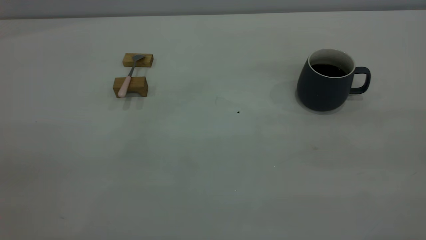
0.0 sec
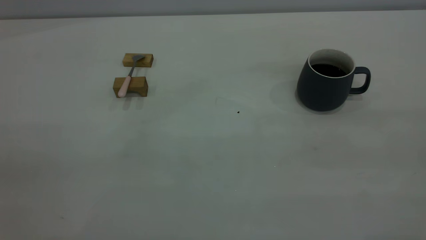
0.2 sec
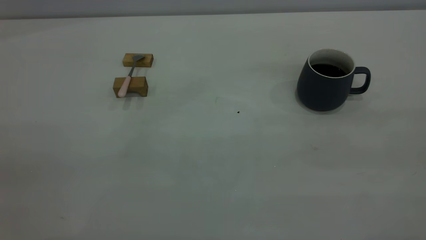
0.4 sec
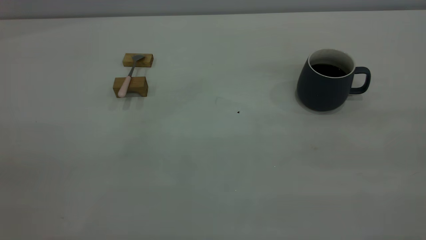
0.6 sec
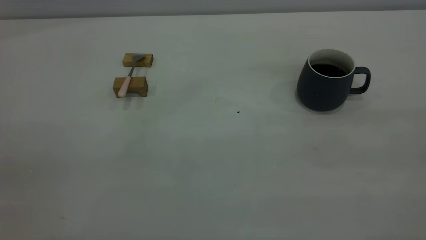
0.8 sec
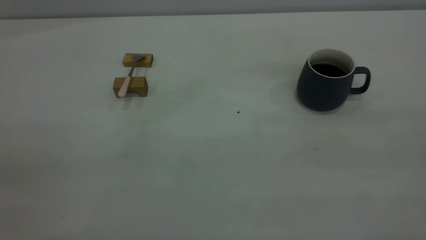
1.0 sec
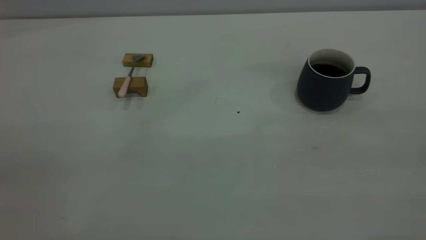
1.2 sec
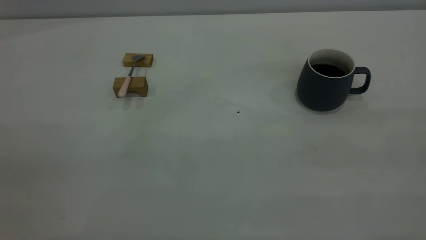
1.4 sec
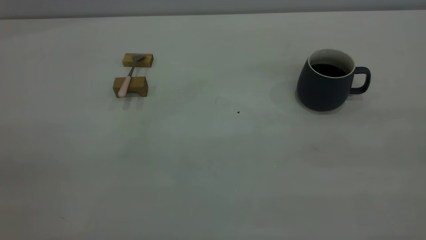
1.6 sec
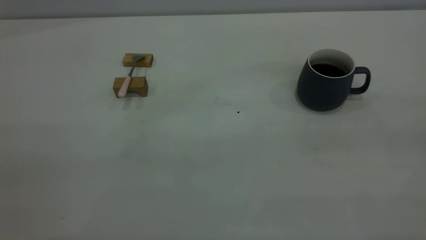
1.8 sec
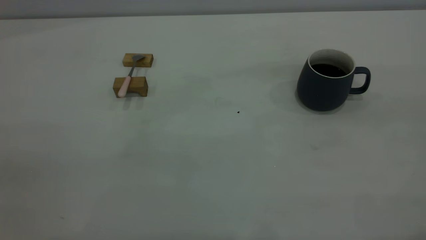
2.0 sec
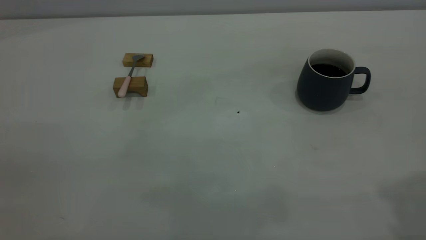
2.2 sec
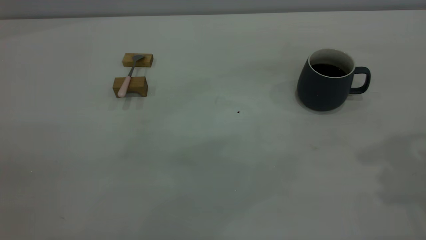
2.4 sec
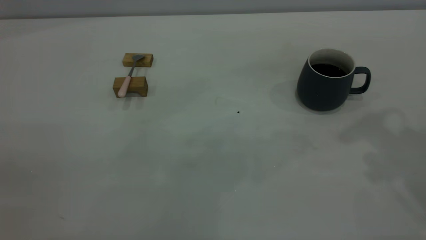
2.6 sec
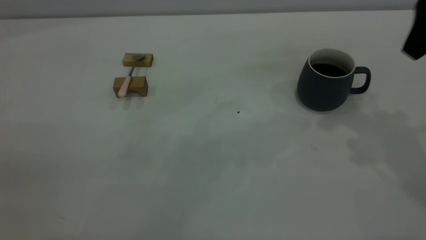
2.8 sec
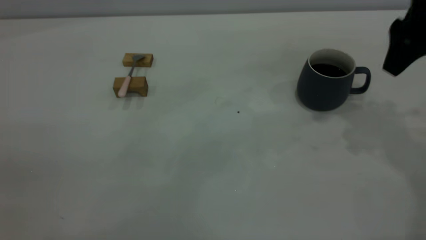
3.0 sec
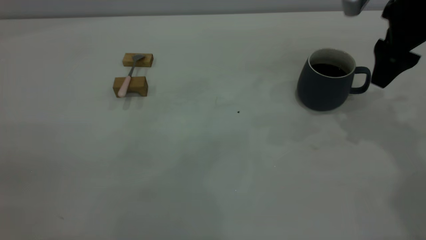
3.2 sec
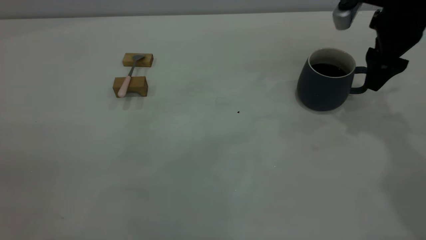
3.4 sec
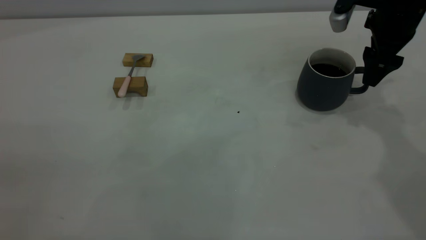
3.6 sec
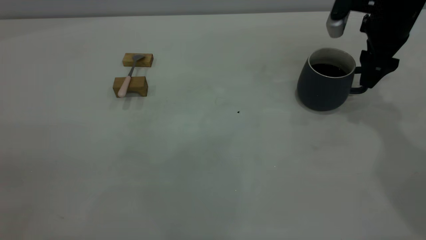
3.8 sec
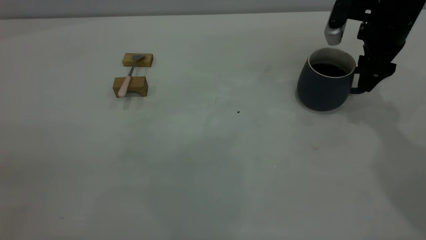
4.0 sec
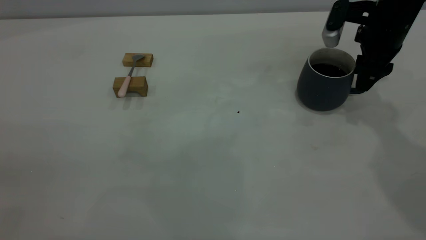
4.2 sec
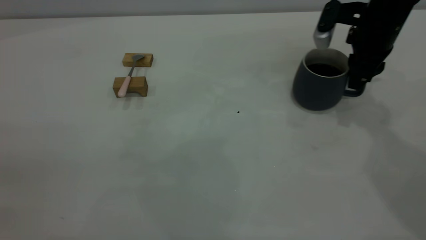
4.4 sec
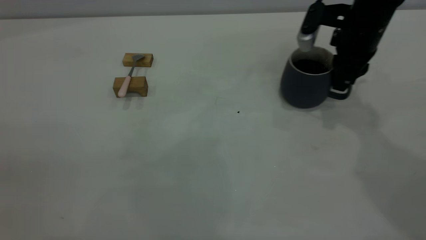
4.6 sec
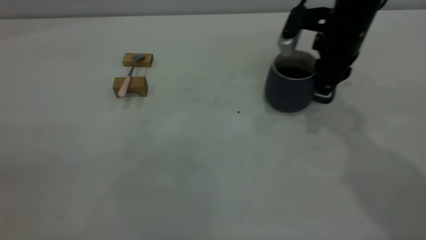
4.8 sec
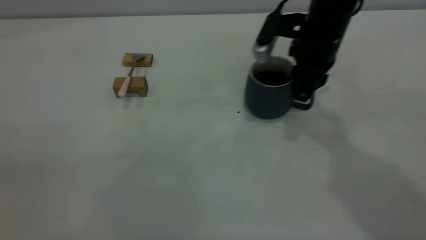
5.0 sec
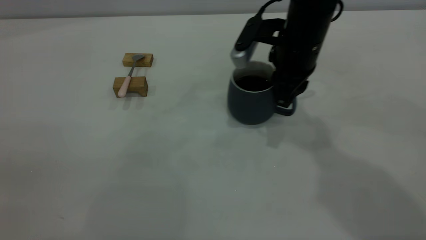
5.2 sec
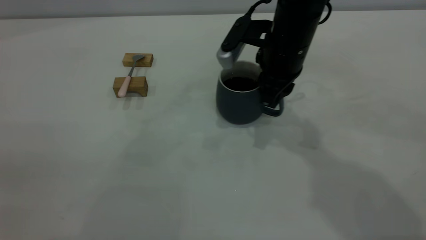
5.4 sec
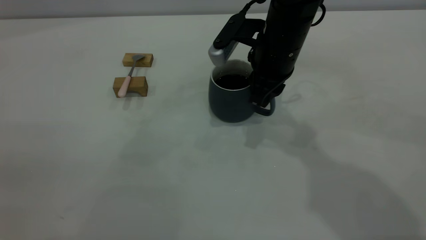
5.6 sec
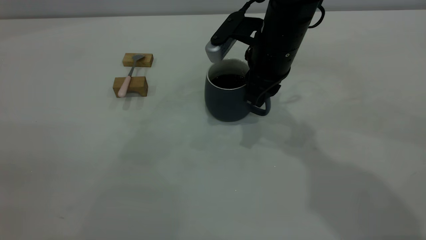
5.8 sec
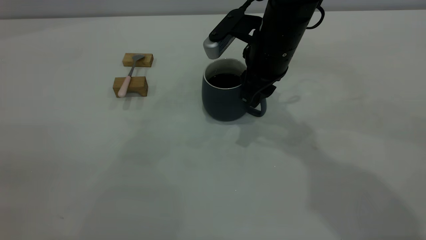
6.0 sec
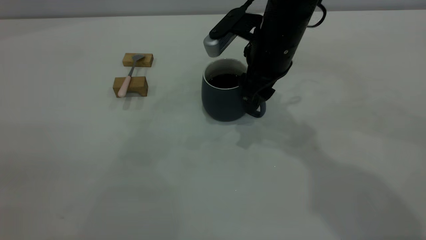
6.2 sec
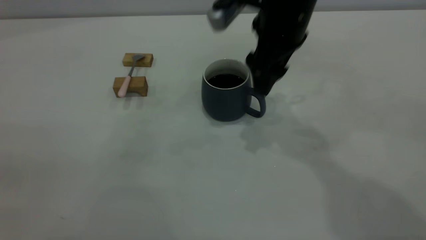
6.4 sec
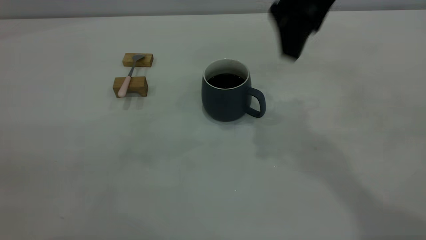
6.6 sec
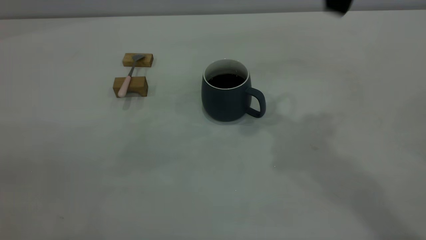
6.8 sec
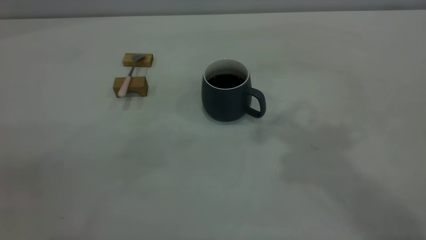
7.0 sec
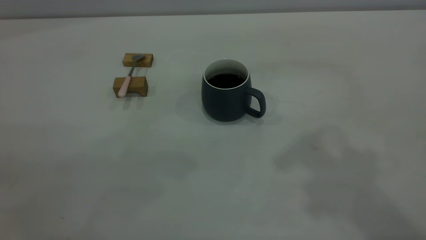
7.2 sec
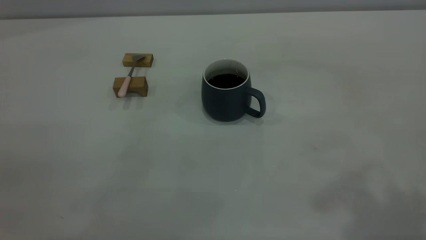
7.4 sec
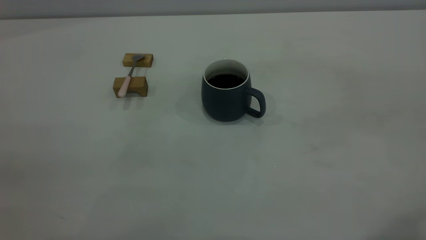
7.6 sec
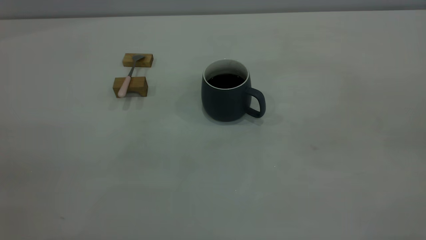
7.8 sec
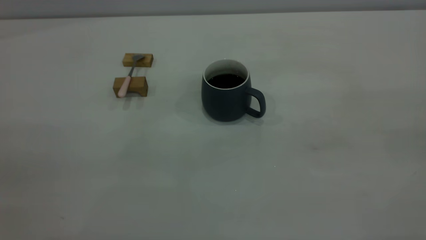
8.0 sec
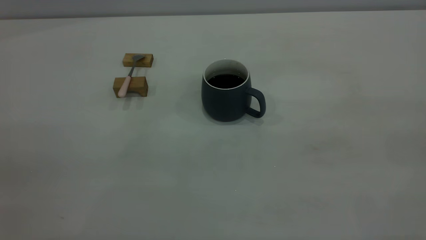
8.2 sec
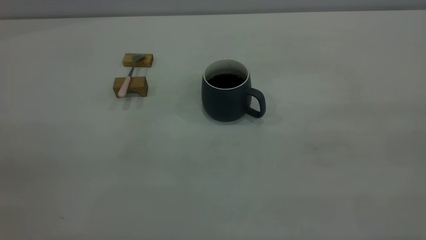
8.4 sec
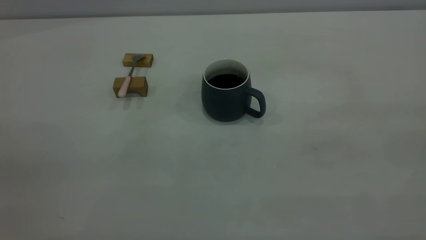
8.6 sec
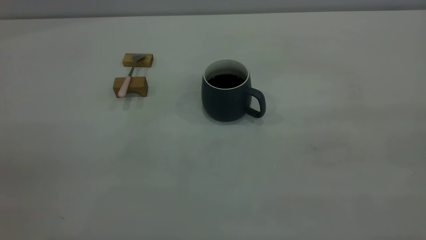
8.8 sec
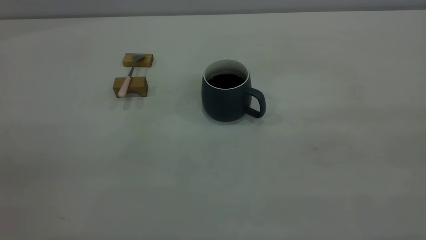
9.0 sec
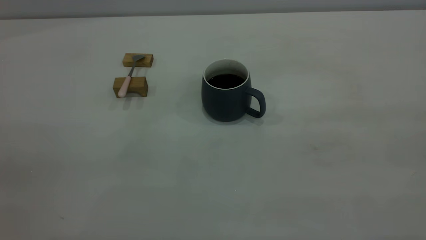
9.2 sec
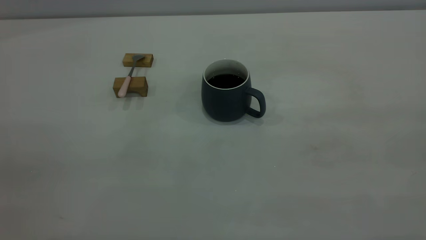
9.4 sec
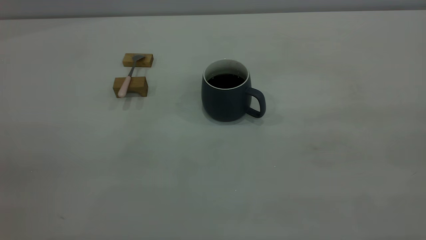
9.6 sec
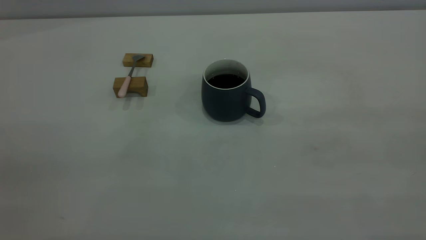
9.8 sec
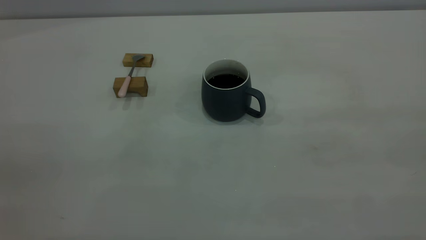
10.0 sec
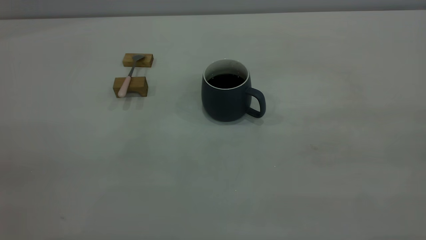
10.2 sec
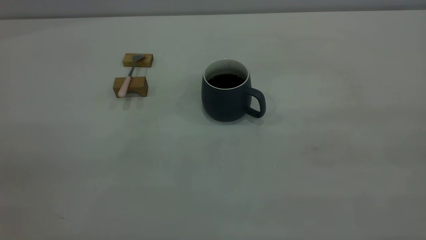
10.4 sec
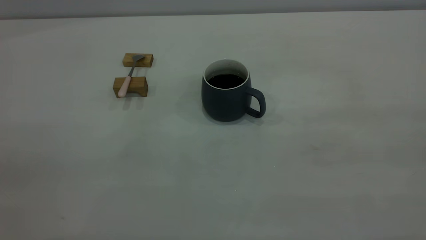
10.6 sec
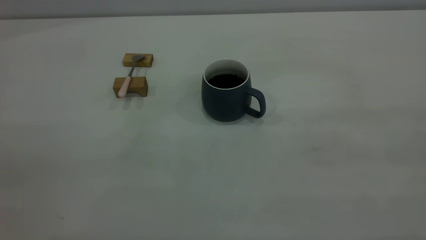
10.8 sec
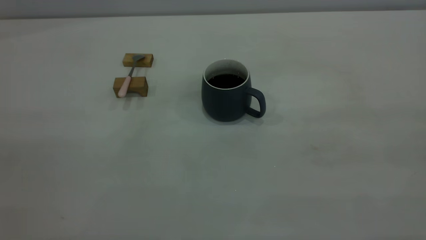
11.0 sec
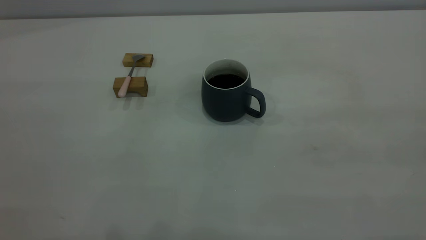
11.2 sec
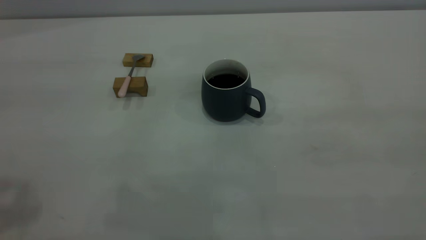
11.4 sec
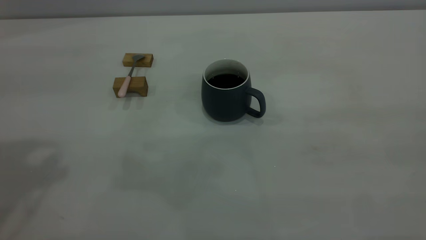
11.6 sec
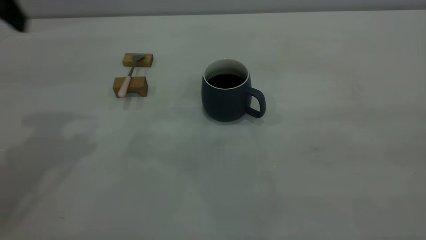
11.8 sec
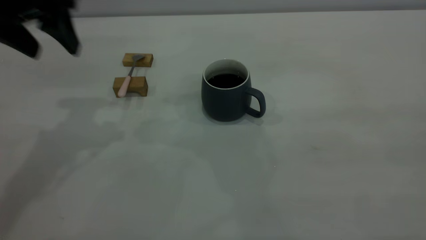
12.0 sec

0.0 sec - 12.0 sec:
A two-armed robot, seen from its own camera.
Step, 0.0 sec - 6.4 sec: Move the cup with coffee to the center of view.
0.0 sec - 1.6 sec: The two grippers keep their place.
1.6 sec - 3.0 sec: The right gripper travels forward by about 35 cm, and opens up.
3.0 sec - 4.4 sec: The right gripper is displaced downward and forward by approximately 10 cm, and closes its fingers.
4.4 sec - 6.0 sec: The right gripper shifts approximately 15 cm to the left.
6.0 sec - 7.6 sec: The right gripper shifts some 40 cm backward, upward and to the right, and opens its fingers.
10.4 sec - 12.0 sec: The left gripper shifts roughly 35 cm forward, and opens up.

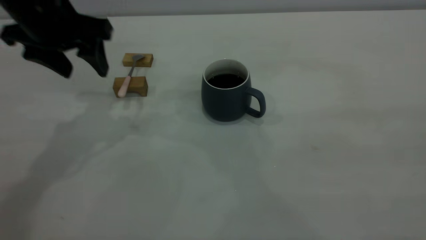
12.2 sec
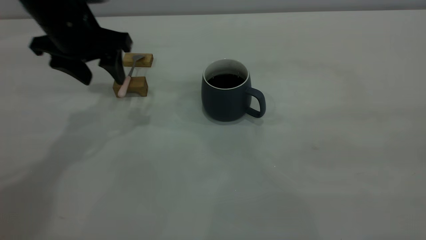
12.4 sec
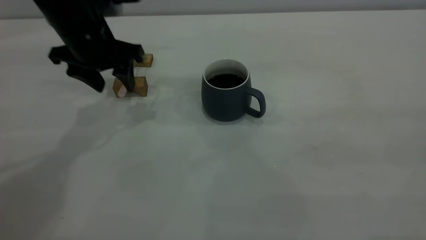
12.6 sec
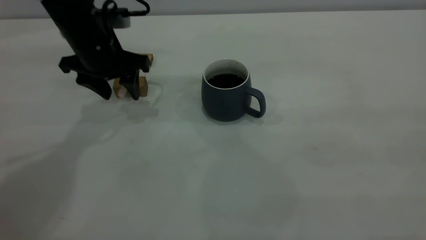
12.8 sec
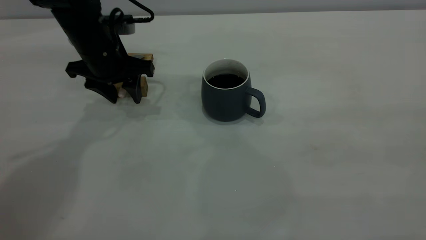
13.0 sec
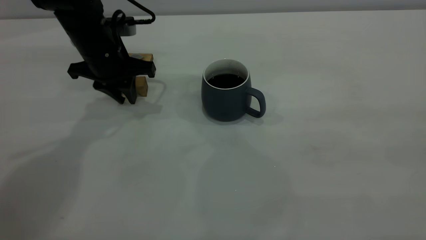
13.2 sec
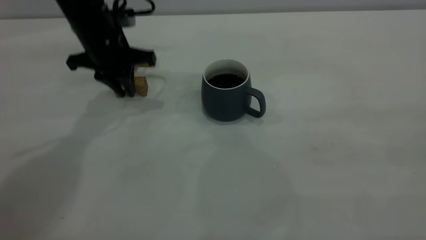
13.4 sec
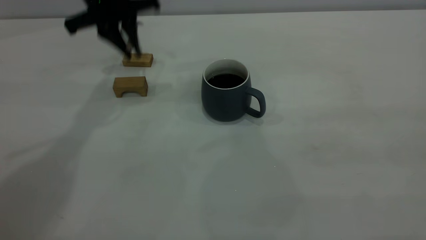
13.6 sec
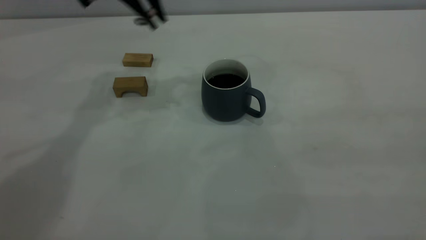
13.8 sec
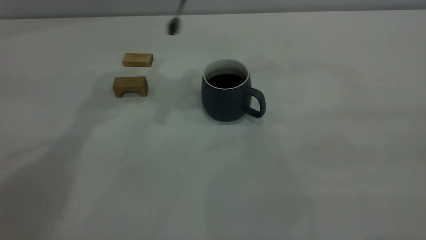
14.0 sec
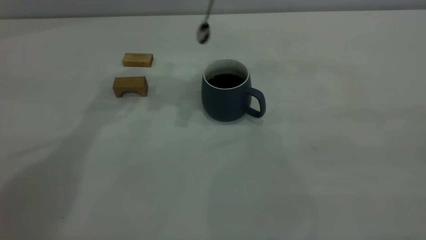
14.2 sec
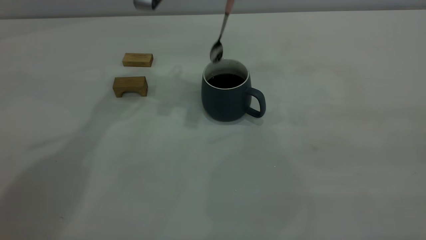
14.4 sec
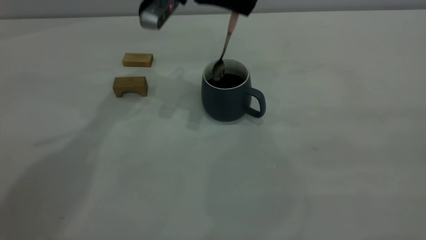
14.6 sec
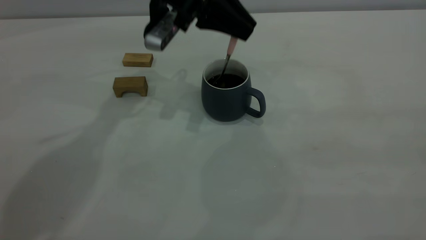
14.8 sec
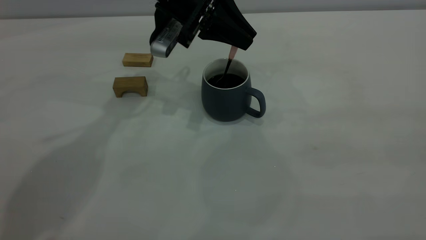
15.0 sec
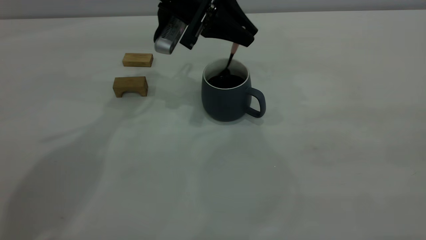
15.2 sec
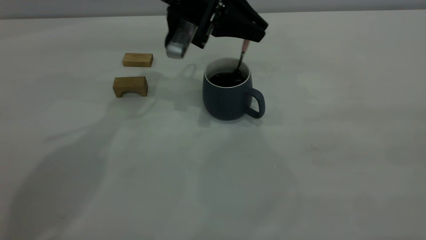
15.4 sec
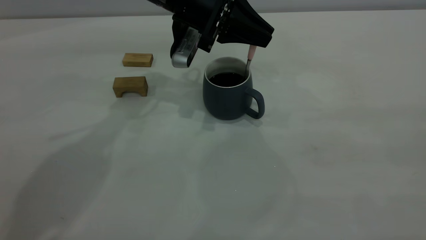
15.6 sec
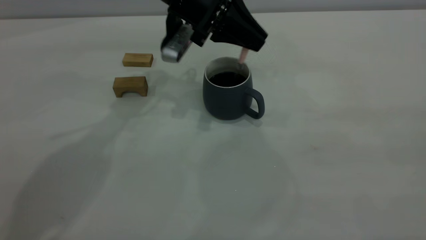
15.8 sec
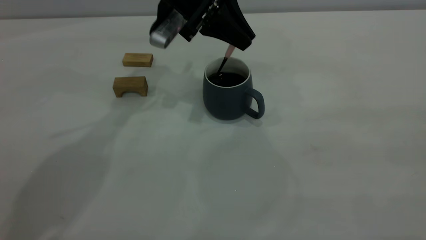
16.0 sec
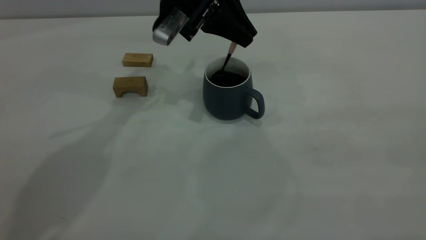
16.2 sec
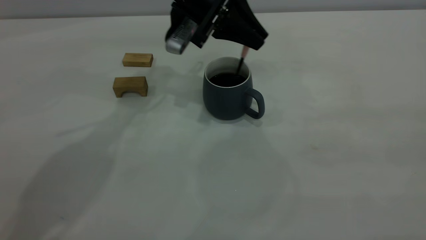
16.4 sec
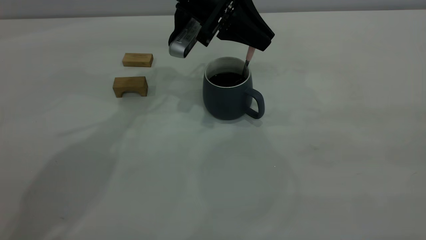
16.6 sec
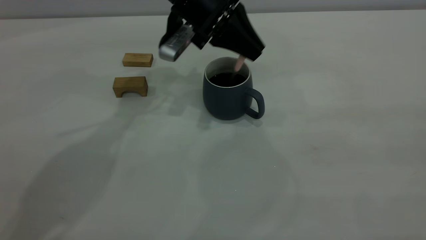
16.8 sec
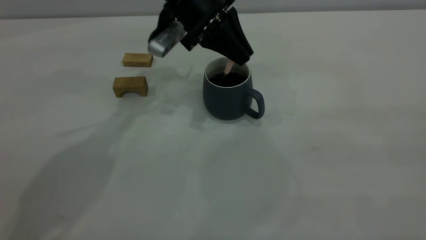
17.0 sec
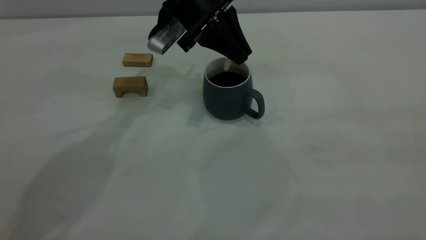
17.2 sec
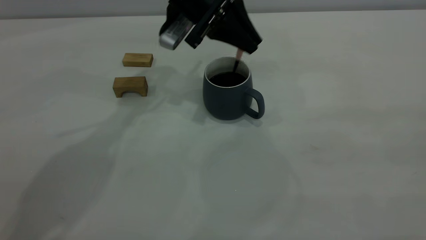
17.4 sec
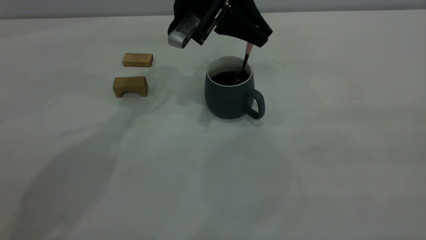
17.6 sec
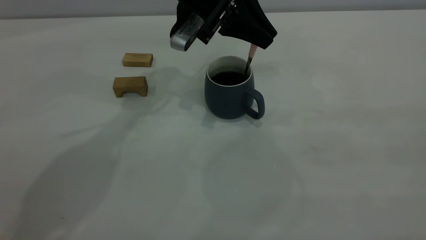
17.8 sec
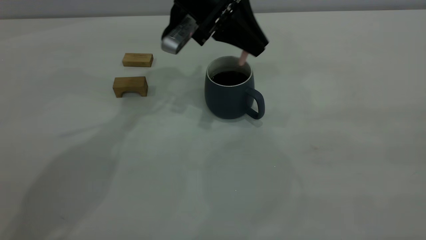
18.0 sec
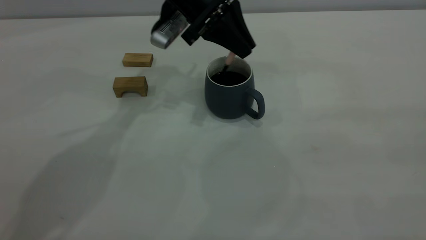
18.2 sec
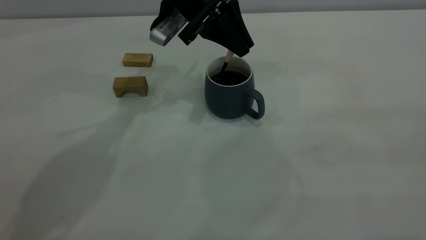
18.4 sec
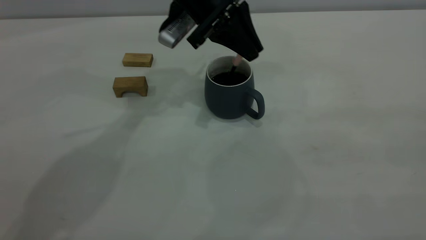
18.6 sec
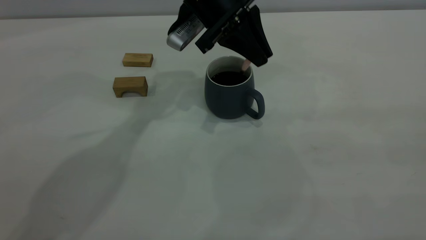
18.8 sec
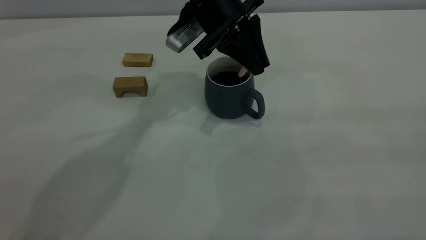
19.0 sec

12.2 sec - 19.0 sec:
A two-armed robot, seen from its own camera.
12.2 sec - 13.6 sec: The left gripper heads forward, covering approximately 10 cm, moves about 10 cm downward and comes back, and closes up.
13.6 sec - 15.0 sec: The left gripper heads to the right, covering about 10 cm.
15.0 sec - 19.0 sec: The grippers make only small movements.
